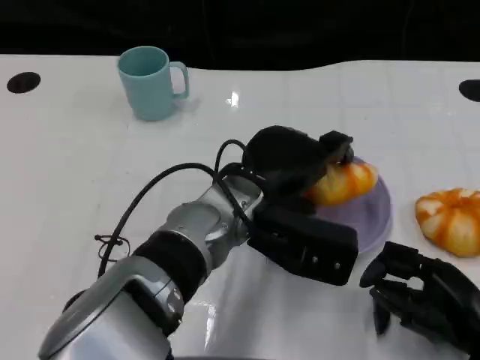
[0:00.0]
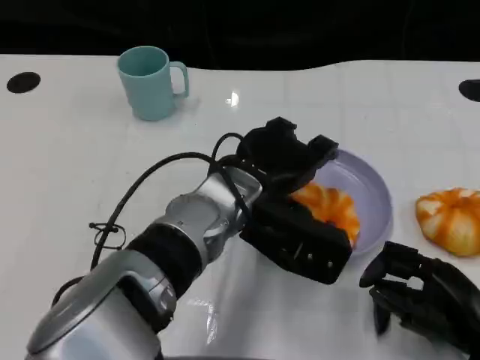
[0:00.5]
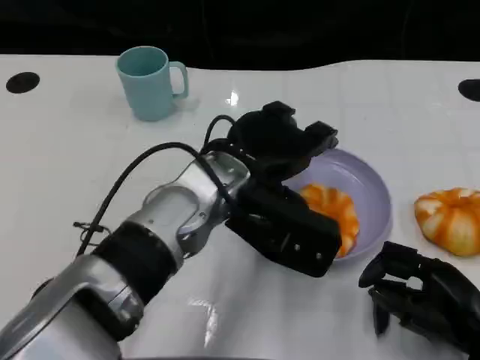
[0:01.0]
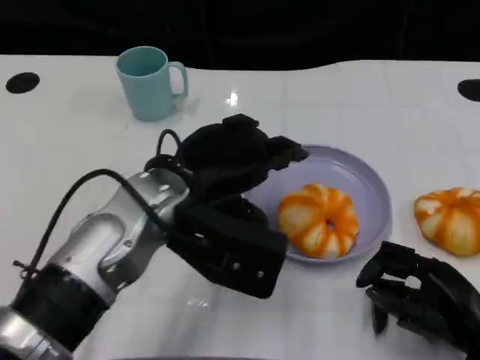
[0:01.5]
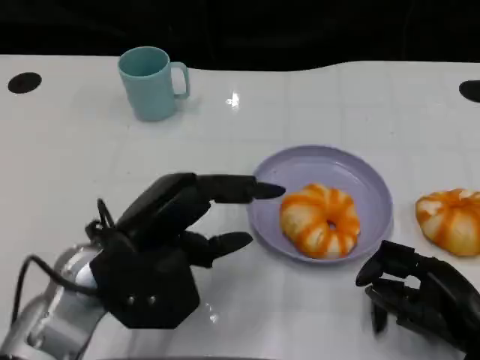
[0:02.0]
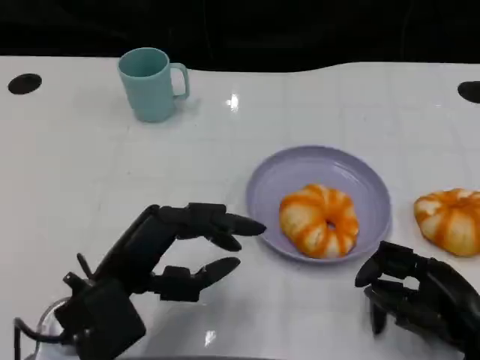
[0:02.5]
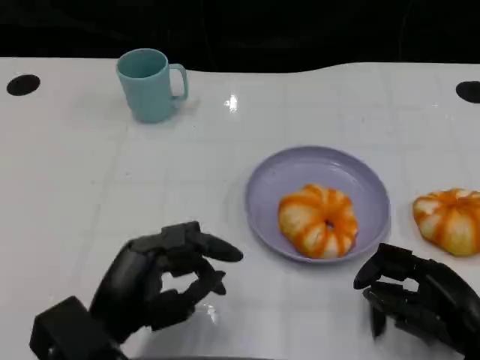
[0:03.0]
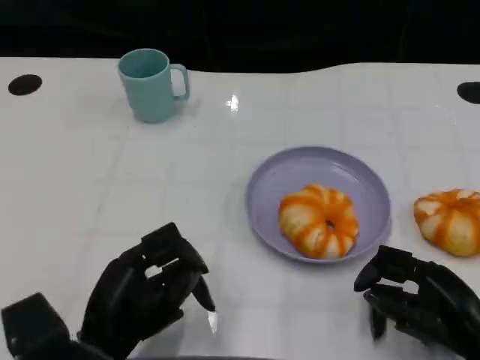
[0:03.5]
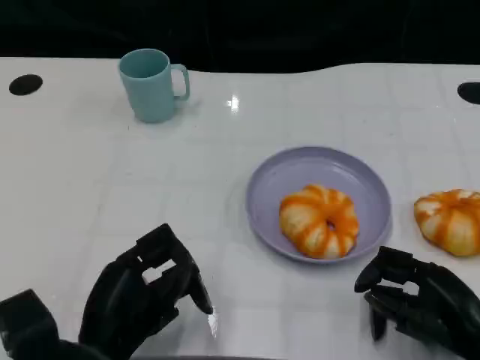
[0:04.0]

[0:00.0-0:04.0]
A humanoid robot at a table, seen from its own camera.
Task of the whole recording: Grasp the bread from the table and place it into the plate.
0:00.0 to 0:02.0: The left hand moves to the left, roughly 15 cm.
0:02.0 to 0:04.0: The left hand is displaced downward and backward by some 10 cm.

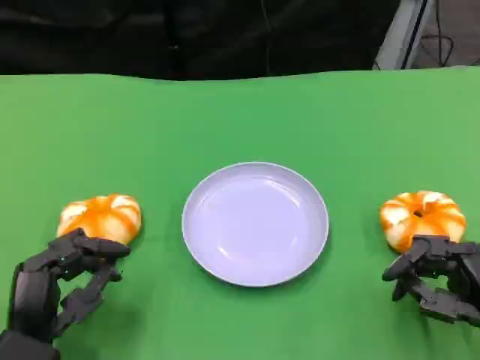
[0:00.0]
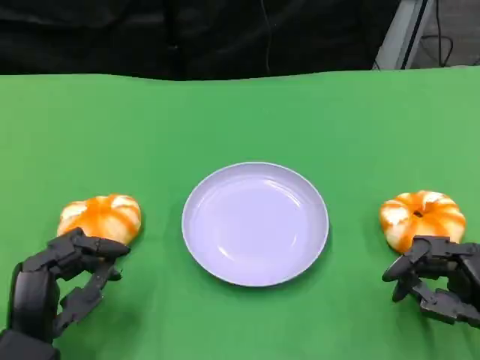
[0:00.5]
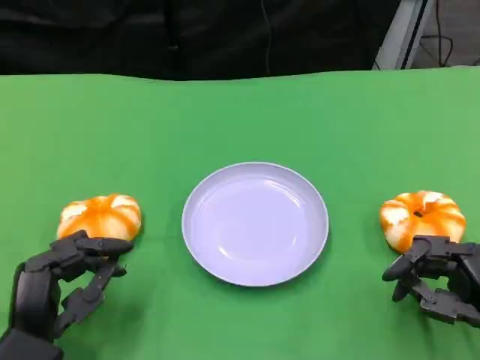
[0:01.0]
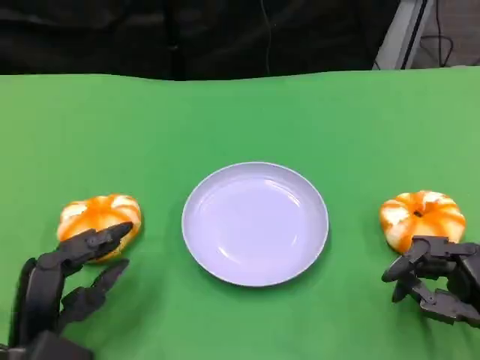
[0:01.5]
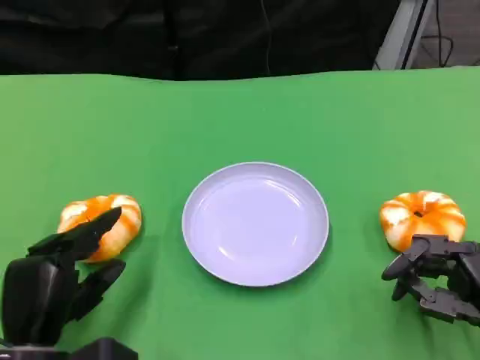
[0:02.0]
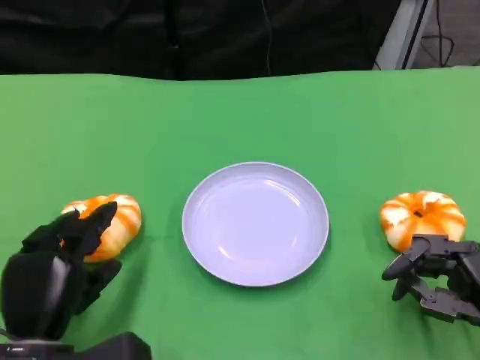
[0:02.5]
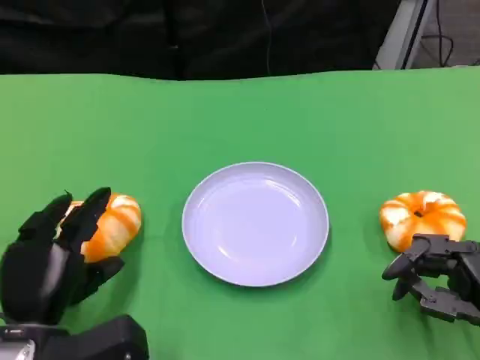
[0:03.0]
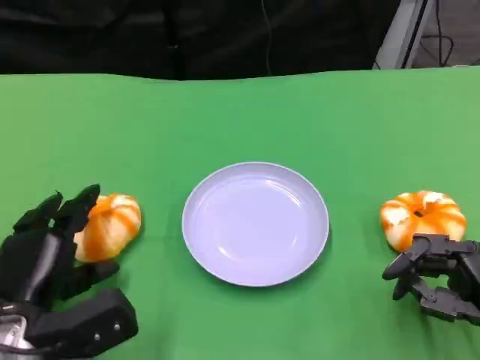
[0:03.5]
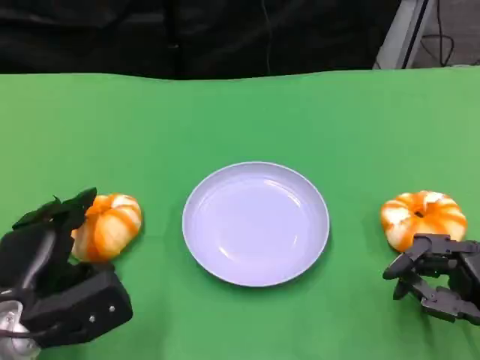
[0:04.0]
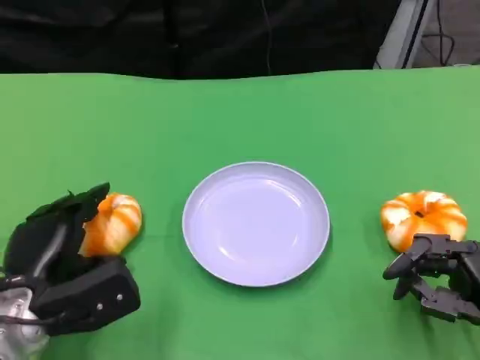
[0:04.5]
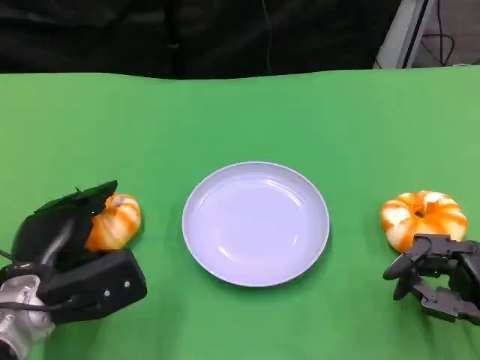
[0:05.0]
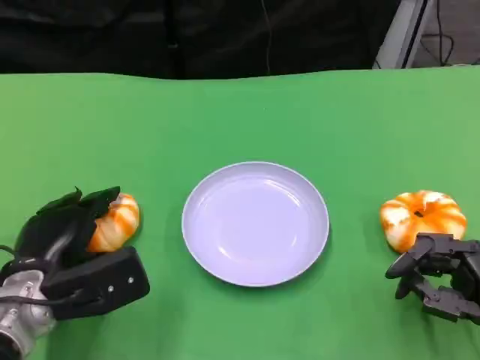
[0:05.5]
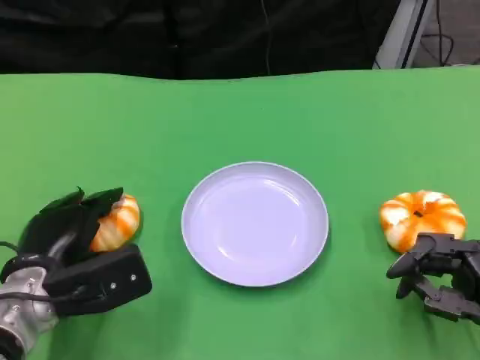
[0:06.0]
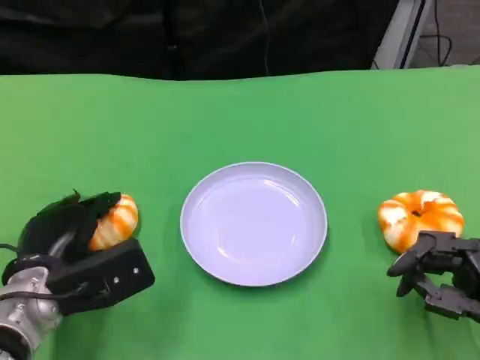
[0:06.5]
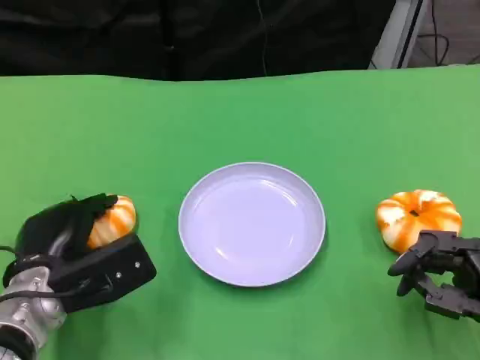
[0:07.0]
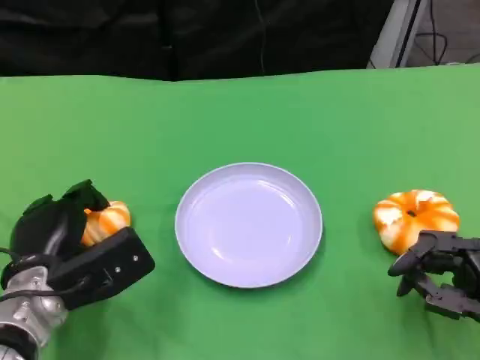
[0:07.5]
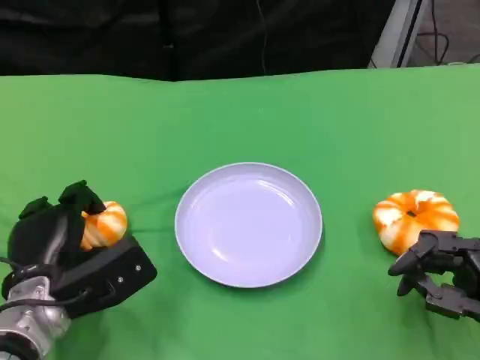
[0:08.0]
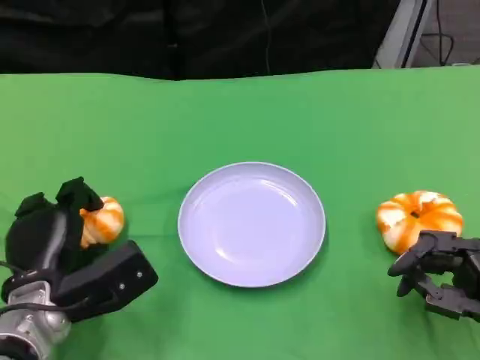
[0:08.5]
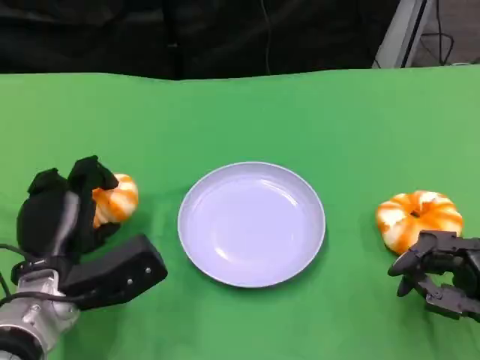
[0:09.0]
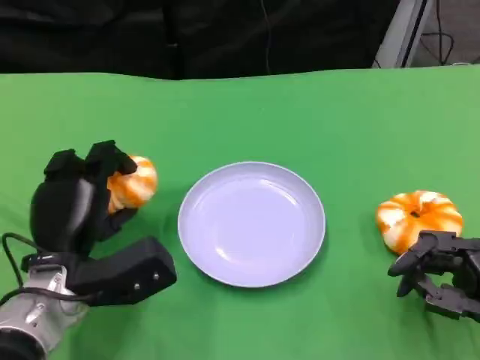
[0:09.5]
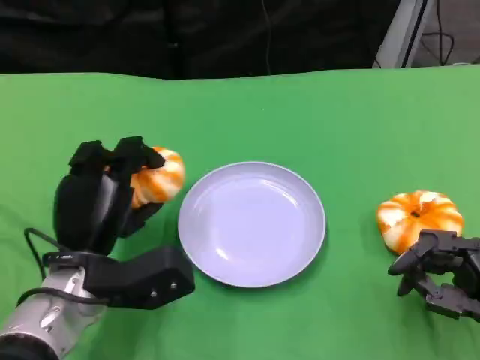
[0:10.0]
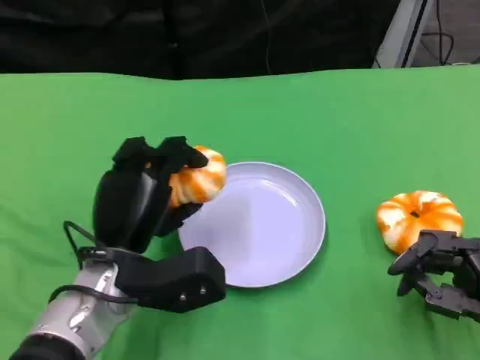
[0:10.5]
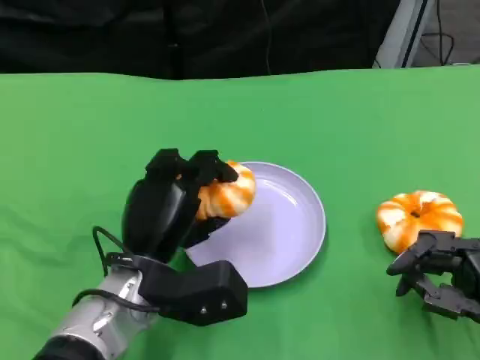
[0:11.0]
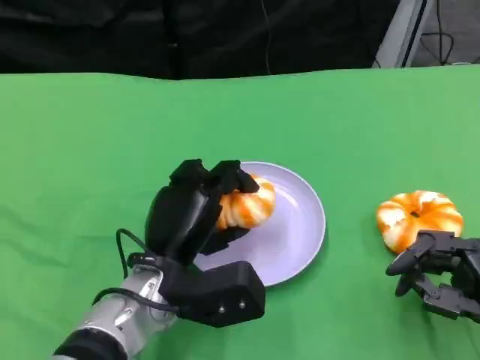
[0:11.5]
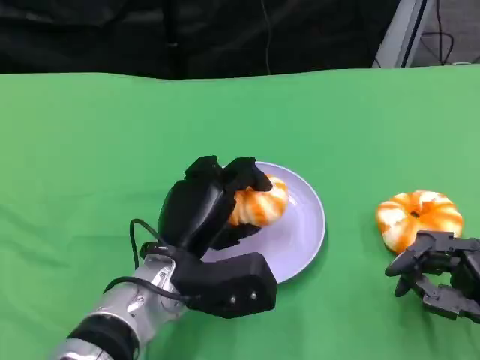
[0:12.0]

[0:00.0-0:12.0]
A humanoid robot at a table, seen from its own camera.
Task of the whole recording: Grasp the bread from the table and place it into the plate.
0:02.0 to 0:04.0: The left hand ends up about 5 cm from where it was.
0:04.0 to 0:08.0: There are only small adjustments of the hands.
0:08.0 to 0:10.0: The left hand changes place by approximately 5 cm.
0:10.0 to 0:12.0: The left hand goes roughly 10 cm to the right.

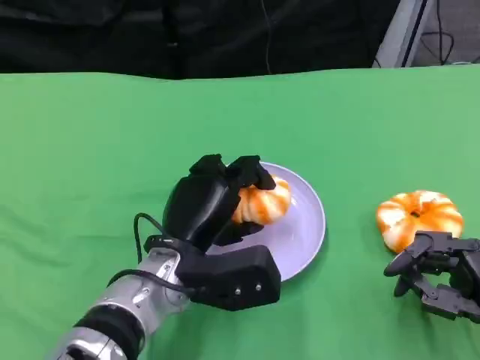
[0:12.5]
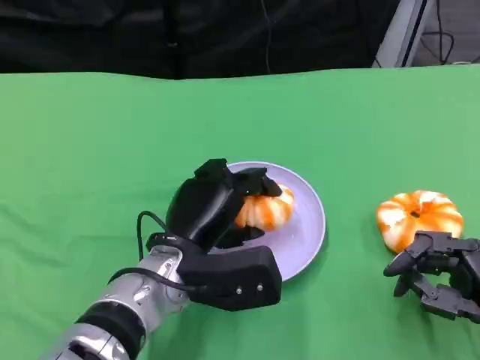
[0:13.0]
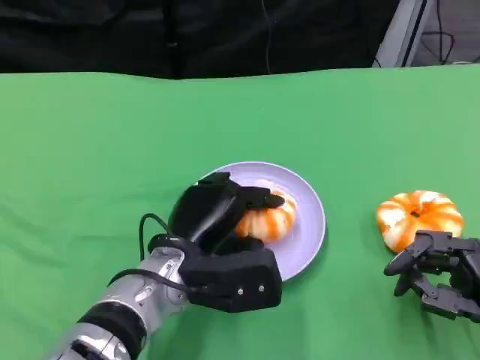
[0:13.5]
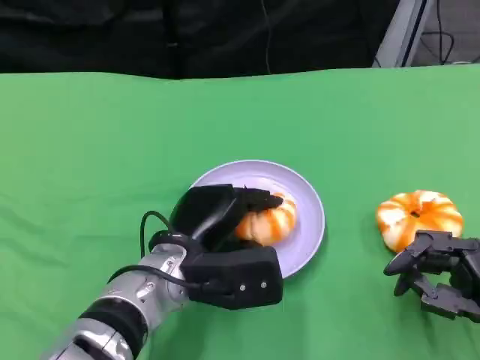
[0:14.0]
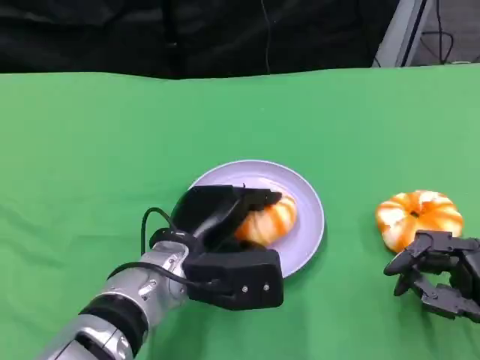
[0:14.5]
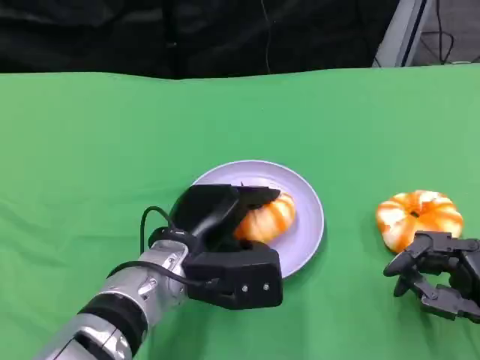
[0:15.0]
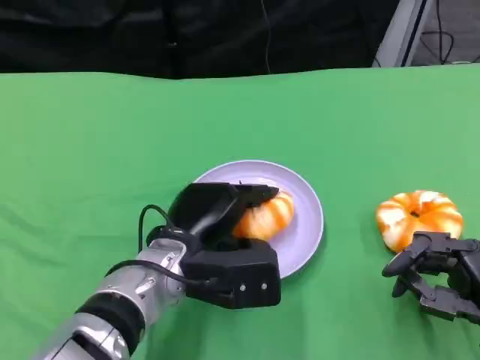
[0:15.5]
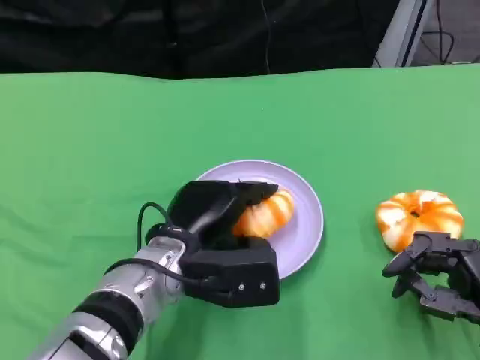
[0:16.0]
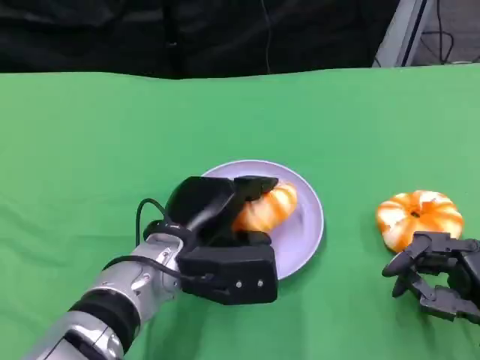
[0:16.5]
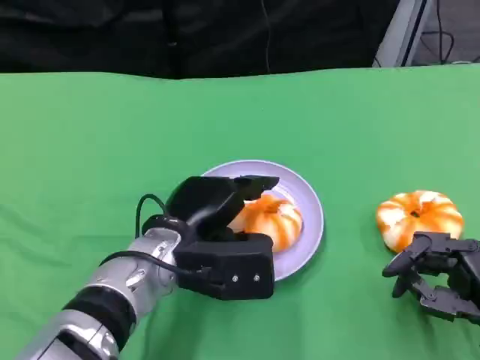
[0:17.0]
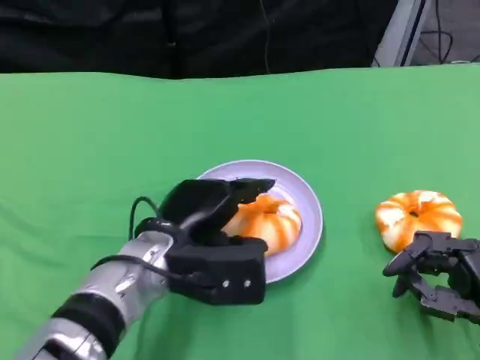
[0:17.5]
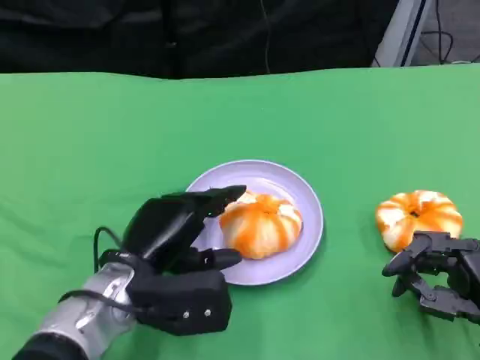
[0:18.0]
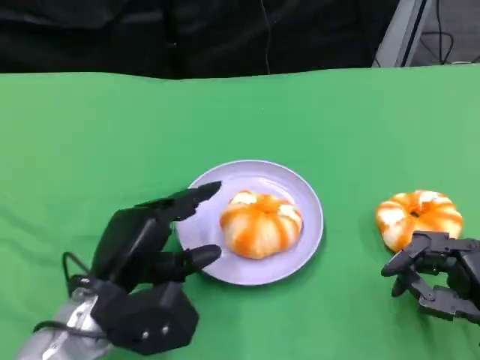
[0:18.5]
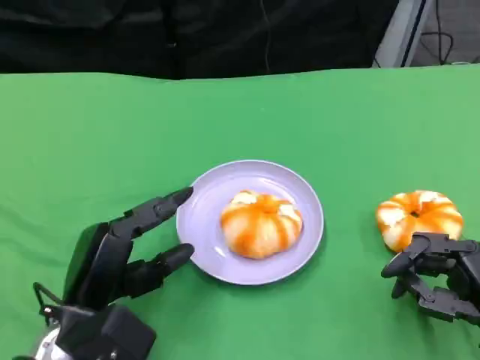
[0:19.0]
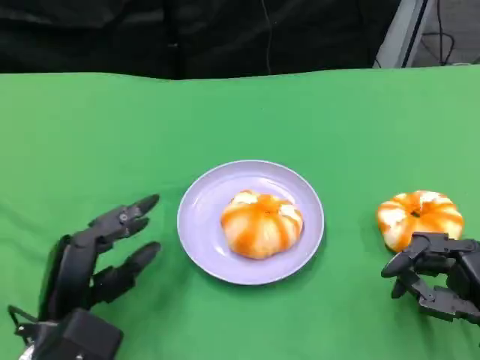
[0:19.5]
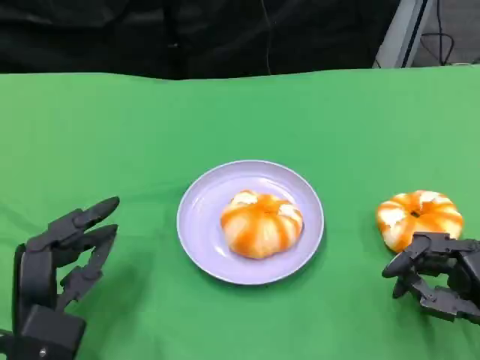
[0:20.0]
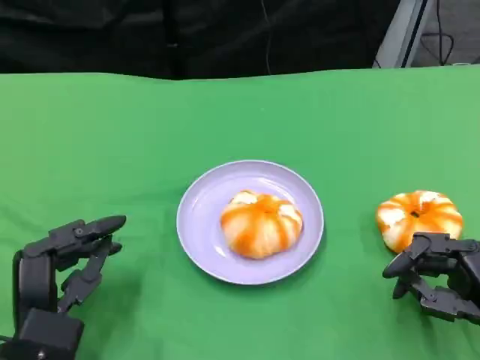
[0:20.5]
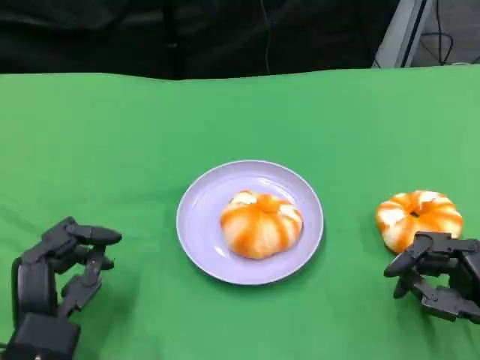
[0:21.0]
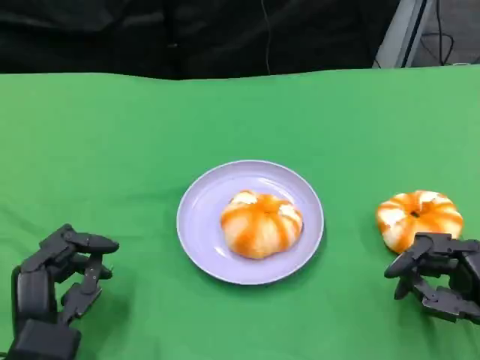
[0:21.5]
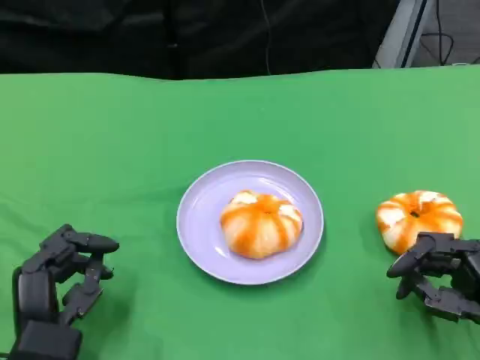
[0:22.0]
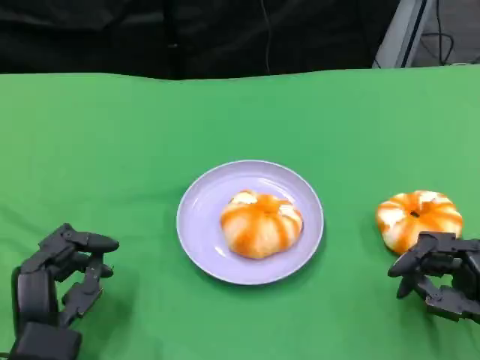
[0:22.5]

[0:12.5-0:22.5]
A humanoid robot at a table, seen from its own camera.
Task of the whole recording: Grasp the bread from the table and place it into the plate.
0:12.5 to 0:14.5: There are only small adjustments of the hands.
0:14.5 to 0:16.5: The two hands keep their place.
0:16.5 to 0:18.5: The left hand shifts about 5 cm to the left.
0:18.5 to 0:20.5: The left hand shifts by roughly 5 cm.
0:20.5 to 0:22.5: The hands stay close to where they were, moving slightly.
